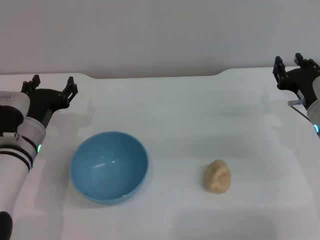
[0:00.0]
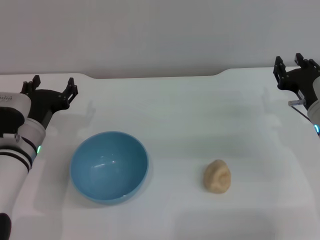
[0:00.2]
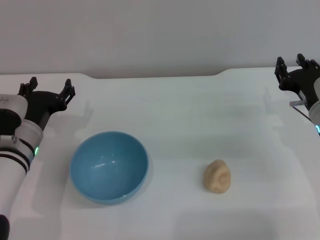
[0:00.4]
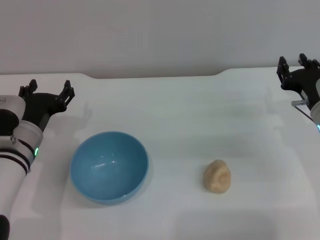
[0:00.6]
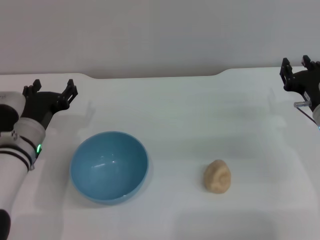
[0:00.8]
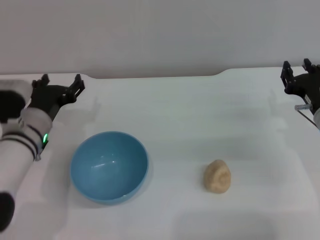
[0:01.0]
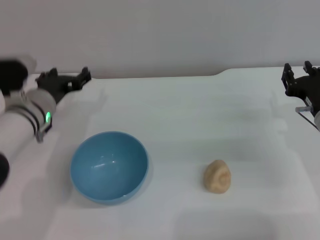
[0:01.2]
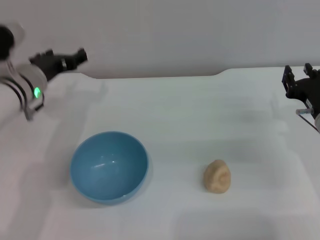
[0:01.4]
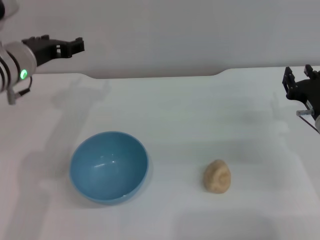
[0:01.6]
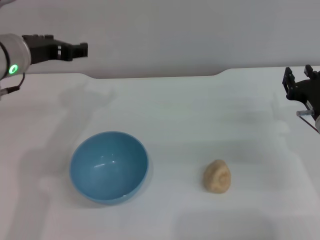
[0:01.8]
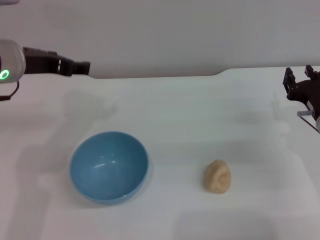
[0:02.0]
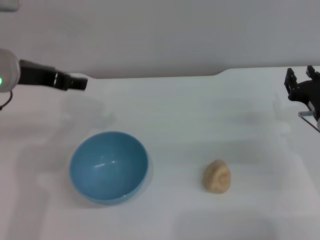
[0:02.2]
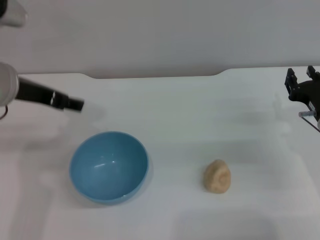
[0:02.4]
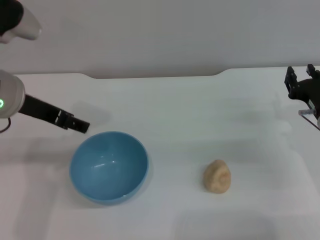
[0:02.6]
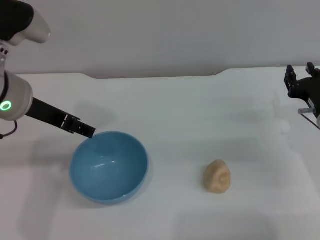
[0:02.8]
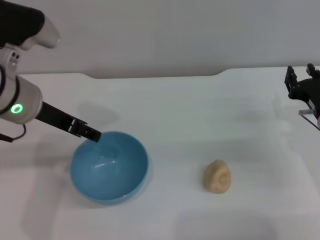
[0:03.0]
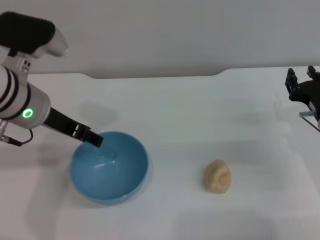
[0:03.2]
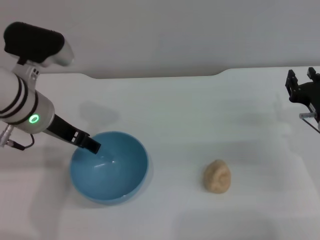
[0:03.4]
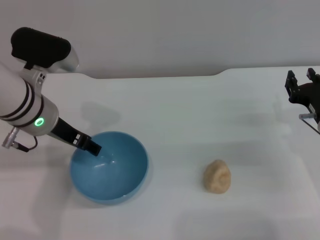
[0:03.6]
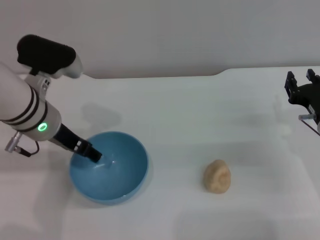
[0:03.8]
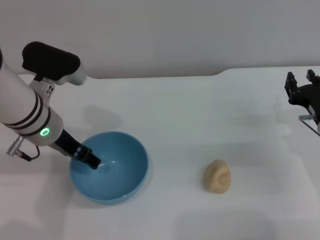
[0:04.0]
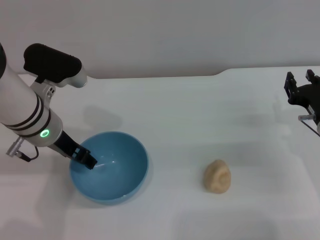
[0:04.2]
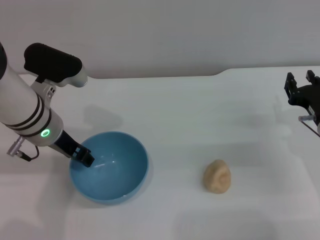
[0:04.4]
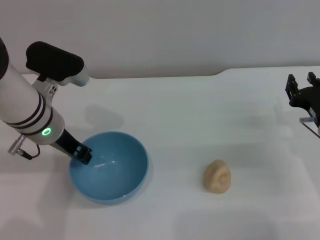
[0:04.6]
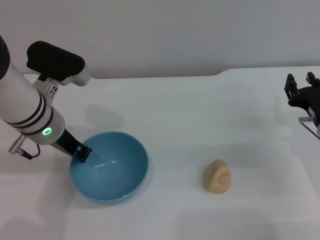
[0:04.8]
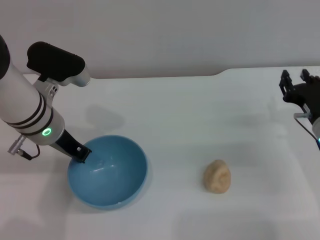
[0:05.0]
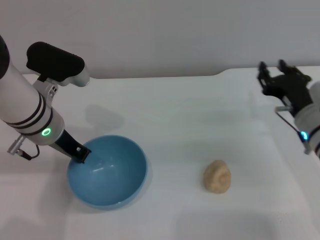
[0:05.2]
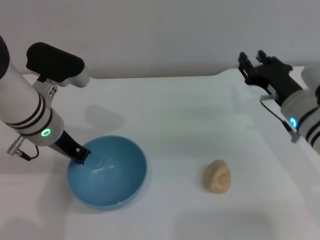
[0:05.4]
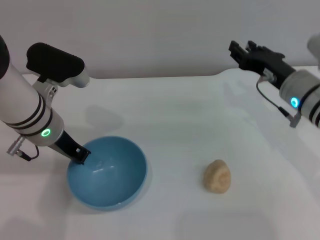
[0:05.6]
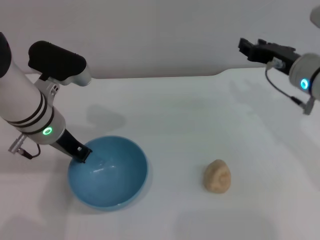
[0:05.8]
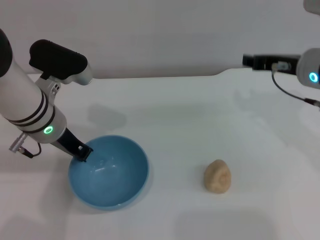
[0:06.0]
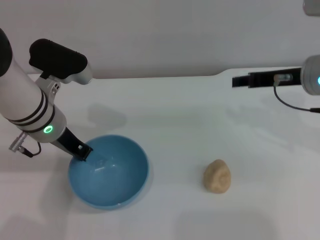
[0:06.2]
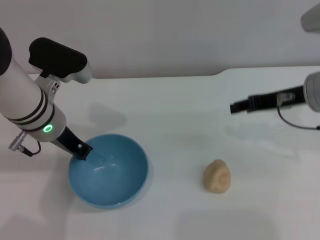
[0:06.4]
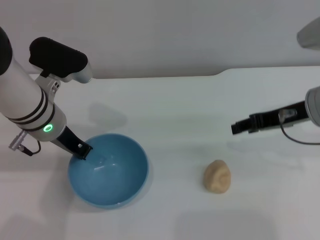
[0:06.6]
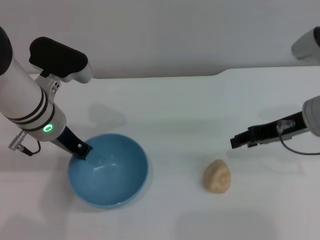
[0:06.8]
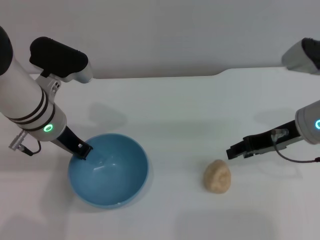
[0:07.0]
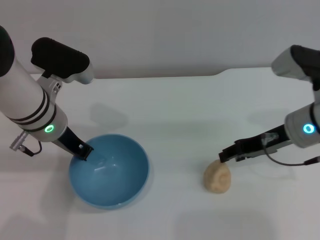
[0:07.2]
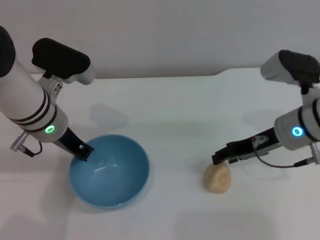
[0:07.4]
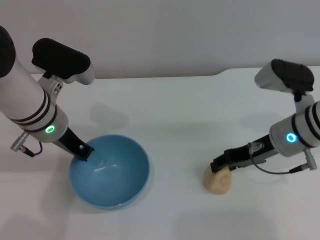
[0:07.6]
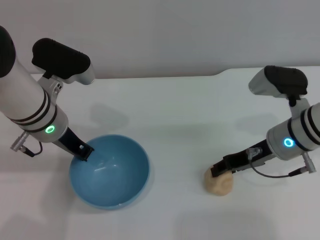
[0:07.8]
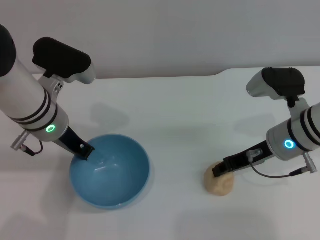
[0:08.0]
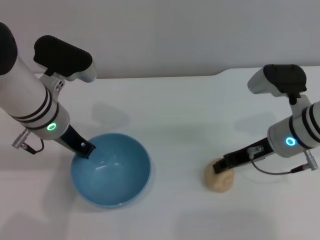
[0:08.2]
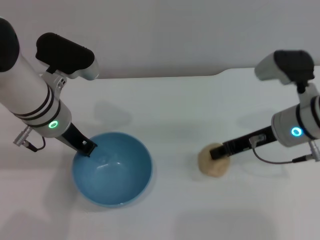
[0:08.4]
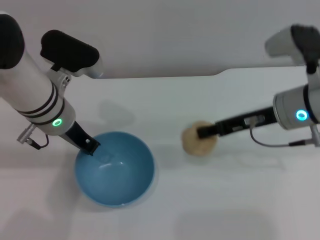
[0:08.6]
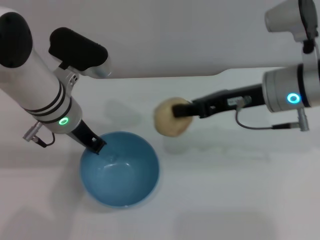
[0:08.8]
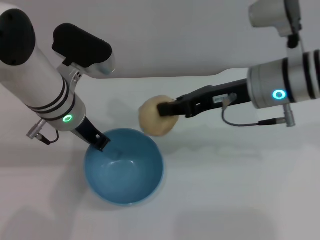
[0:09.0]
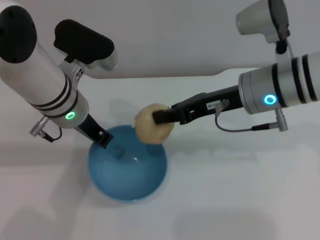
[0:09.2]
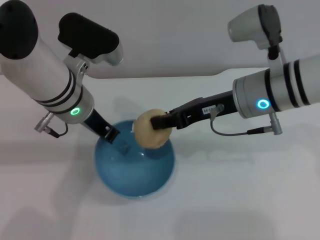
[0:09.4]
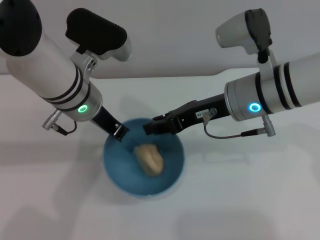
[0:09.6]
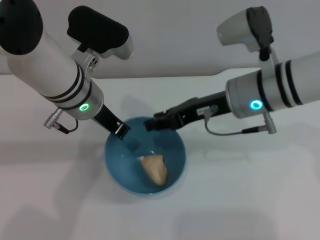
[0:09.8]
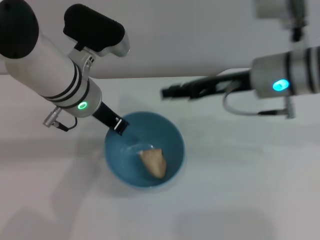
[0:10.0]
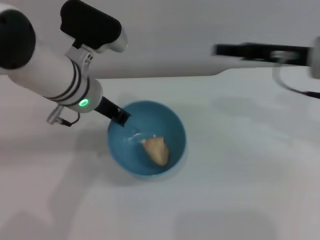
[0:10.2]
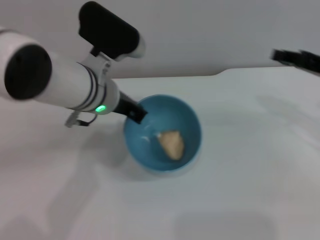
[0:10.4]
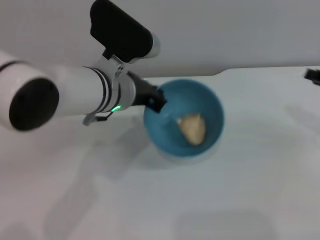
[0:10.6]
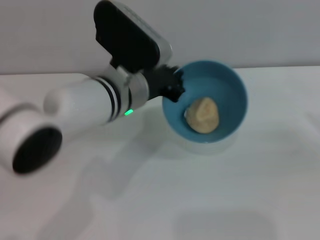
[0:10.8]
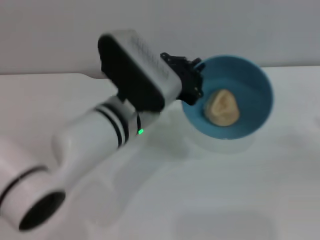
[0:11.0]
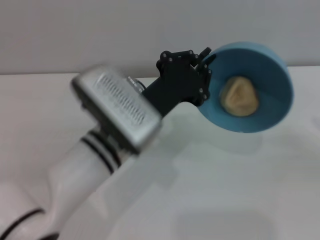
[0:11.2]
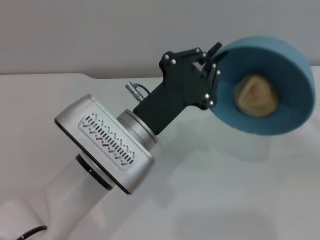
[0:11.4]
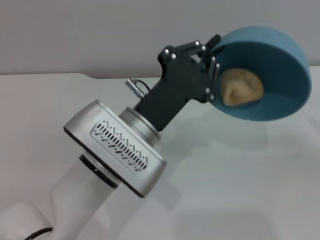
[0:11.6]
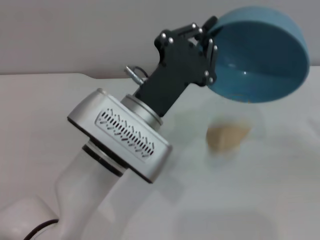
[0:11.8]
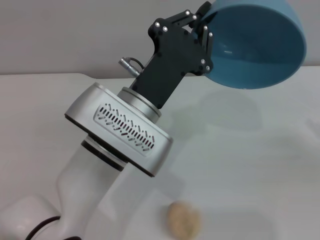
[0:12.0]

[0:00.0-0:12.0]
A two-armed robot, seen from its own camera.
Task of the whole recording: put the egg yolk pastry into the blue bowl and pour it out repeatedly.
Step, 0:00.0 to 0:05.0: Pick up the bowl with the left gripper.
Step, 0:05.2 to 0:08.4: Pick up the egg yolk pastry with the right gripper.
Step, 0:08.8 to 0:10.0: Place the egg yolk pastry into the bowl.
0:00.0 to 0:01.6: The left gripper heads upward and forward, covering about 15 cm.
0:01.6 to 0:03.0: The left gripper heads backward, covering approximately 5 cm.
0:03.0 to 0:04.4: The left gripper moves downward, approximately 5 cm.
0:04.4 to 0:06.0: The right gripper moves upward and to the left, some 15 cm. Meanwhile the left gripper closes.
0:06.0 to 0:07.6: The right gripper goes approximately 5 cm downward.
0:07.6 to 0:09.0: The right gripper travels upward by roughly 10 cm.
0:09.0 to 0:10.4: The right gripper shifts about 15 cm to the right.
0:10.4 to 0:12.0: The left gripper is displaced backward by approximately 10 cm. The right gripper heads to the right, downward and backward, covering about 10 cm.

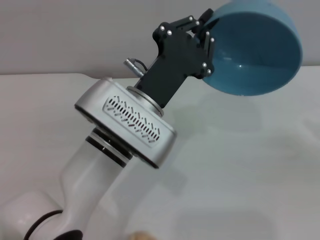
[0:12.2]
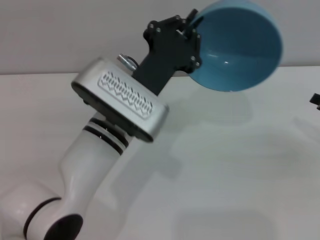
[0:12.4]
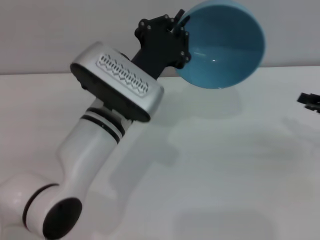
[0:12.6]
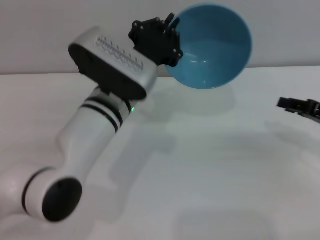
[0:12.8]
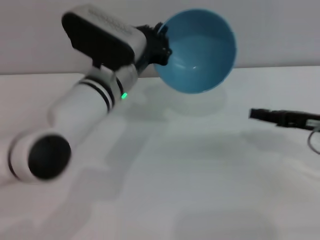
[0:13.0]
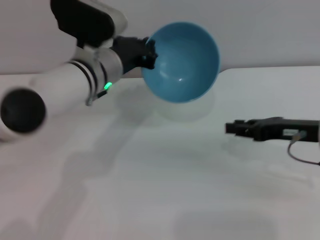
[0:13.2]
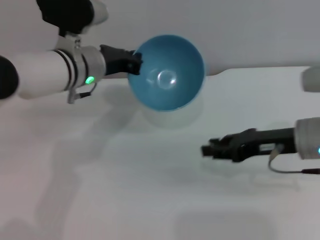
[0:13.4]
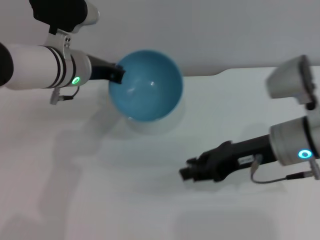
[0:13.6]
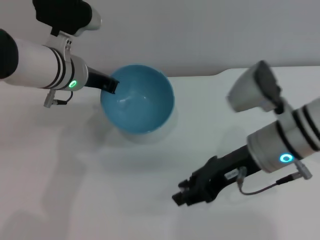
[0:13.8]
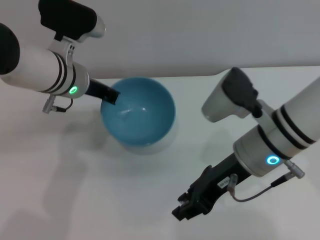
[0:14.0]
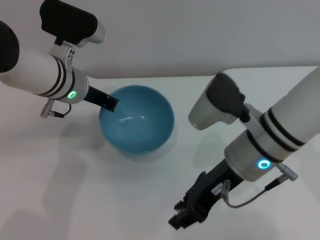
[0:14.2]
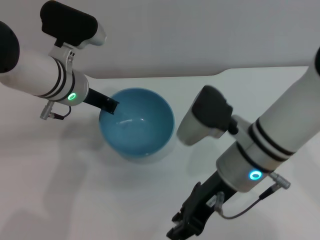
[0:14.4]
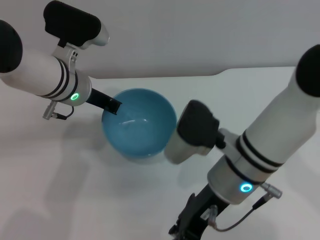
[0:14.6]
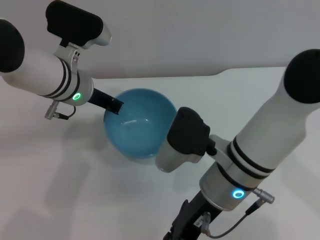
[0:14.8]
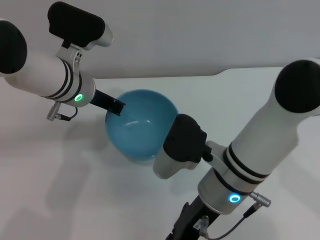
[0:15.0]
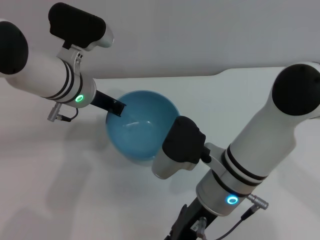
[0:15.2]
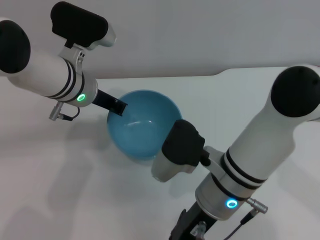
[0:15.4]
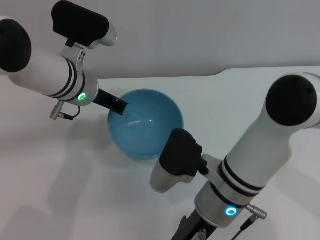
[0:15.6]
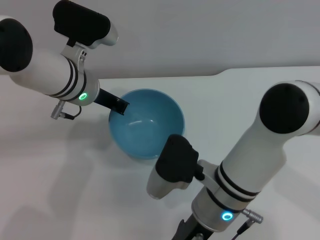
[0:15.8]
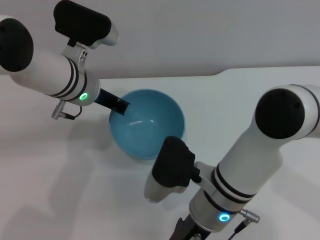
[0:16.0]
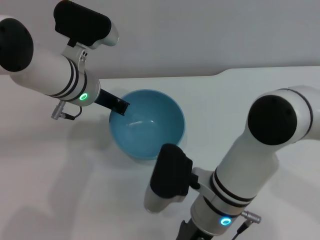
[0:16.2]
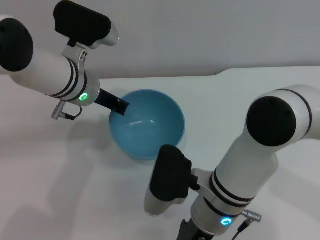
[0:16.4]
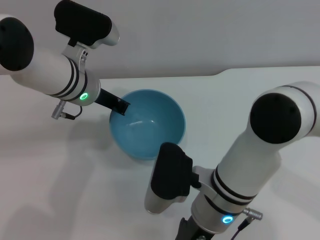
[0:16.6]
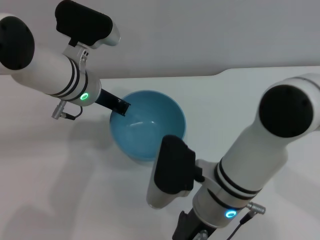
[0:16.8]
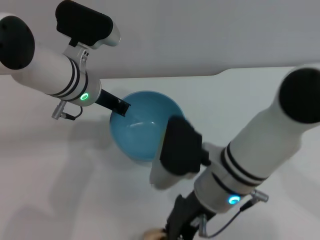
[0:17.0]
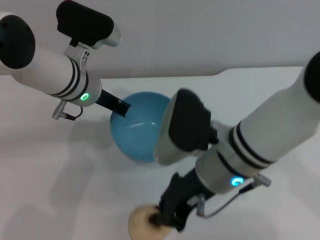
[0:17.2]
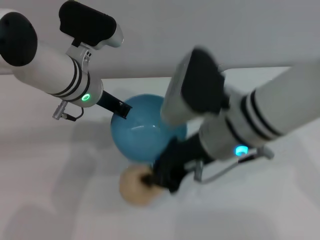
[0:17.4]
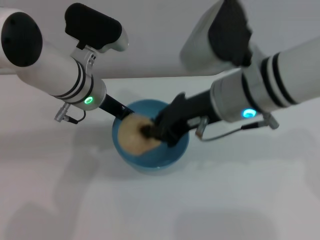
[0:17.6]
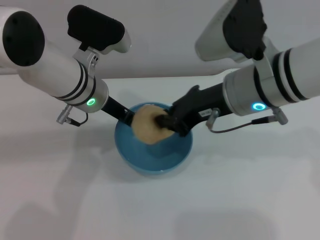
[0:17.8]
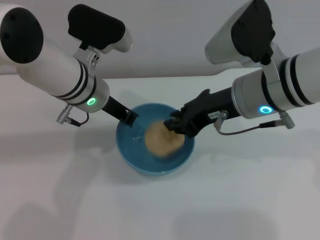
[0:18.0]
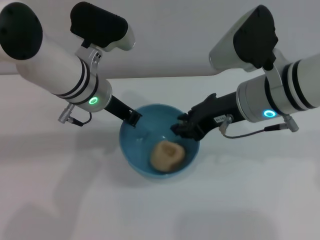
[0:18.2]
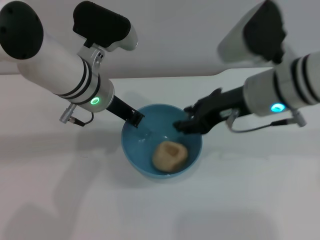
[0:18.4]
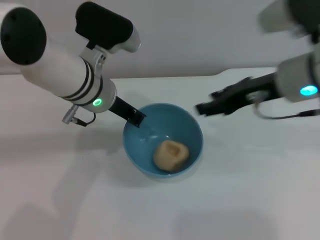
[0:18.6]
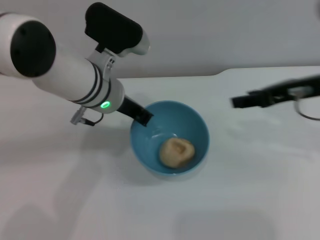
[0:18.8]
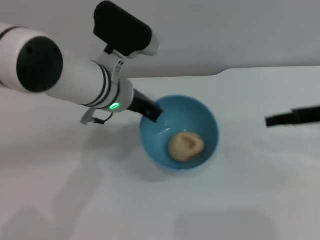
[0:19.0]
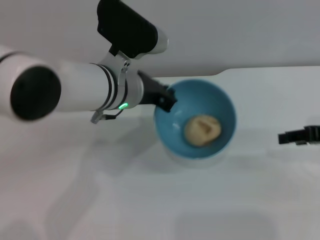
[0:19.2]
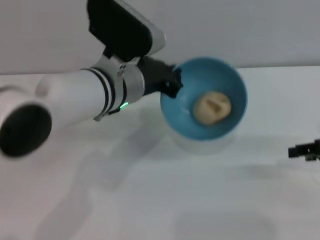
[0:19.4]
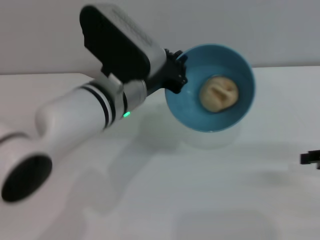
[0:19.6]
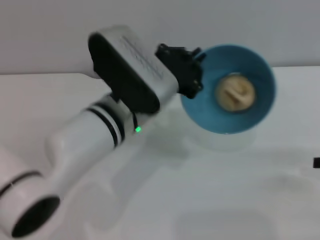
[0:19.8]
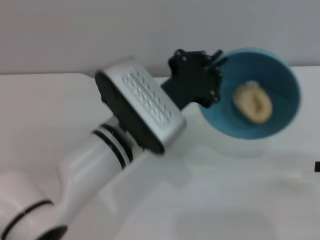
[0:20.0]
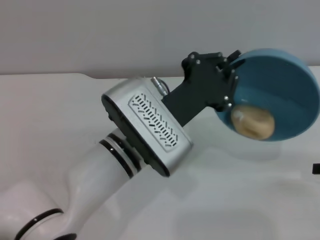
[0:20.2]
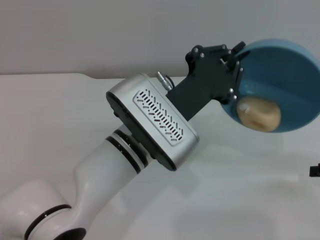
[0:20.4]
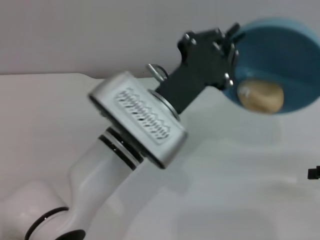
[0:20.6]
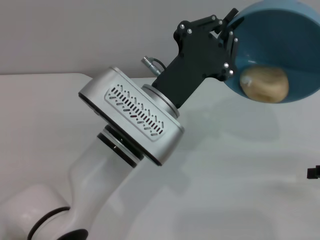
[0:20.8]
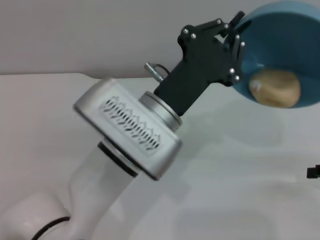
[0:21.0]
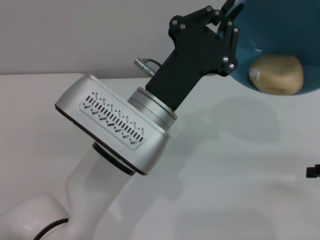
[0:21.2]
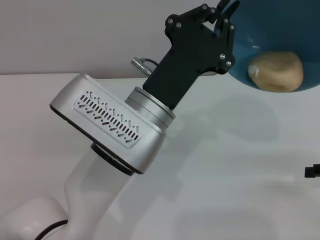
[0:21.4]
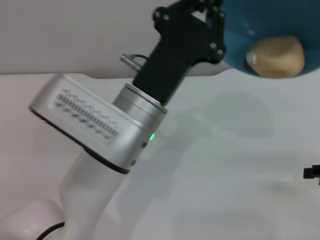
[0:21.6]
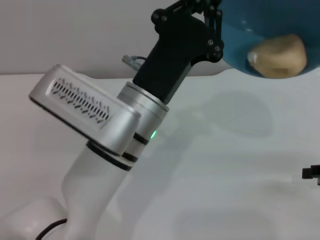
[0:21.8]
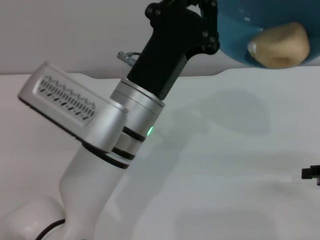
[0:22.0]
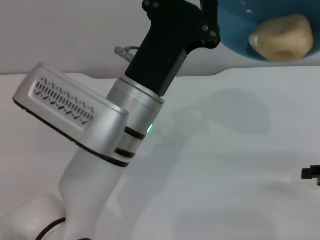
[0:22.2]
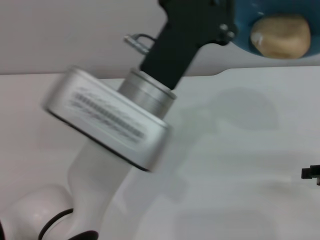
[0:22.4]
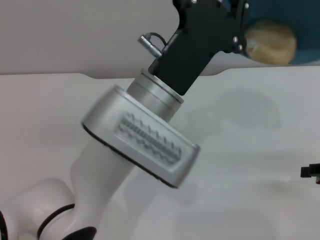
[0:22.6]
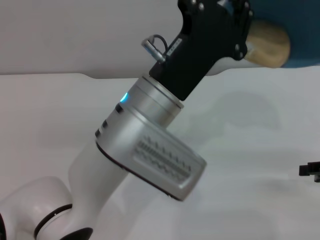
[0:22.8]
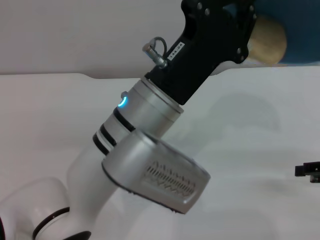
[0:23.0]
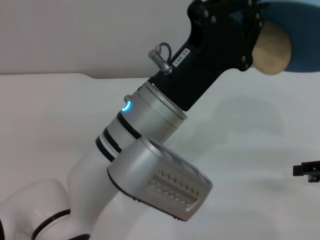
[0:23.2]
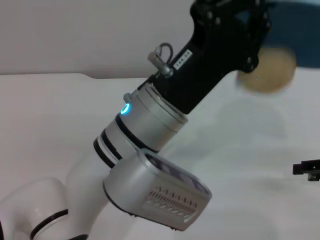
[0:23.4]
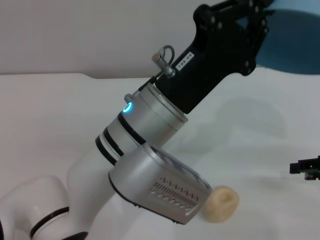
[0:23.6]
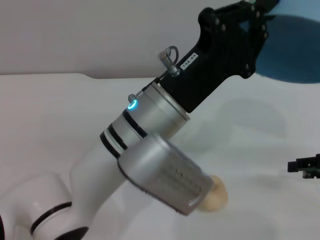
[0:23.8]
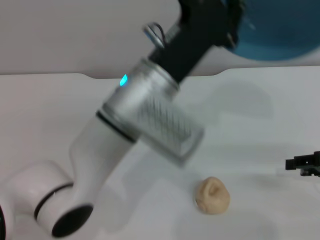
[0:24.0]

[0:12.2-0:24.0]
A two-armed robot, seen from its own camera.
Task of the whole recording: put the egg yolk pastry into the blue bowl and pour it out repeatedly.
Step, 0:12.8 to 0:17.0: Pick up the egg yolk pastry with the right gripper.
Step, 0:17.2 to 0:18.6: Place the egg yolk pastry into the bowl.
Step, 0:18.8 to 0:23.8: Pour the egg yolk pastry out of bowl.
0:12.2 to 0:13.6: The left gripper travels forward and to the left by about 15 cm, while the right gripper shifts about 20 cm to the left.
0:13.6 to 0:15.2: The right gripper is displaced to the left by approximately 10 cm.
0:16.6 to 0:18.2: The right gripper travels upward, forward and to the right by approximately 15 cm.
0:18.2 to 0:19.6: The left gripper goes roughly 5 cm backward, while the right gripper shifts about 20 cm to the right, and opens its fingers.
0:19.6 to 0:21.0: The left gripper is displaced backward by roughly 5 cm.
